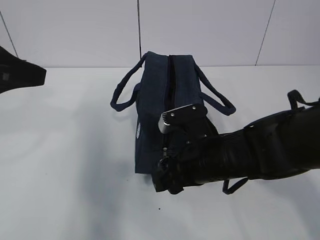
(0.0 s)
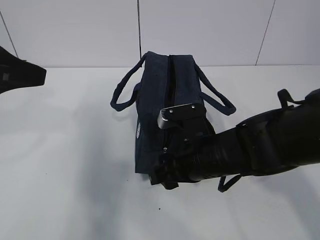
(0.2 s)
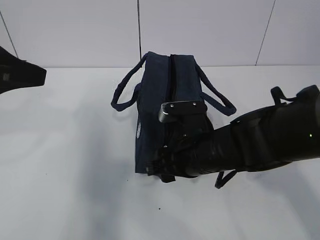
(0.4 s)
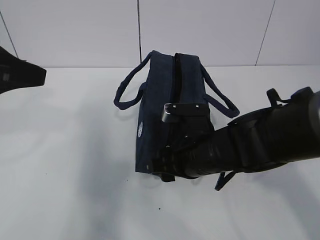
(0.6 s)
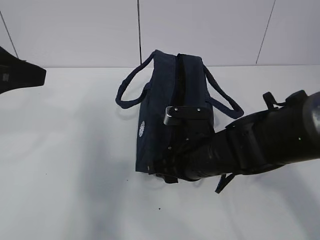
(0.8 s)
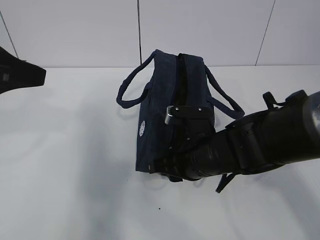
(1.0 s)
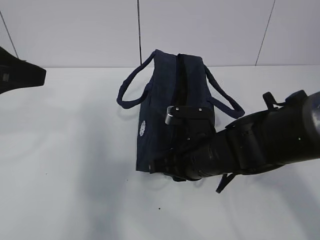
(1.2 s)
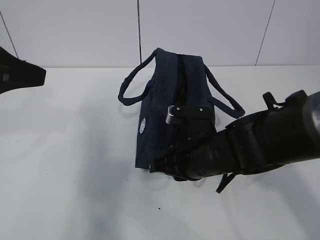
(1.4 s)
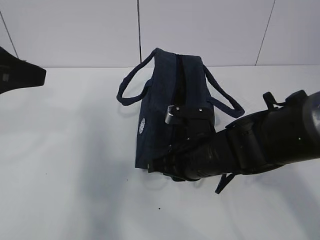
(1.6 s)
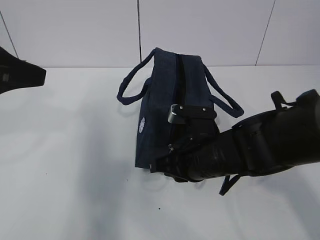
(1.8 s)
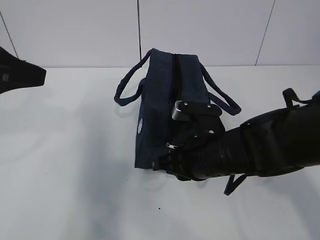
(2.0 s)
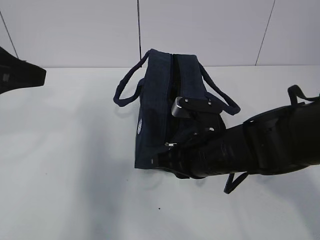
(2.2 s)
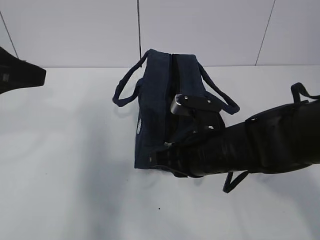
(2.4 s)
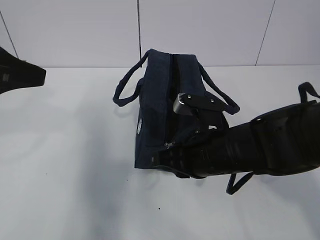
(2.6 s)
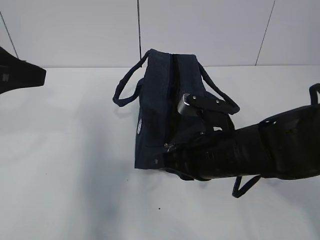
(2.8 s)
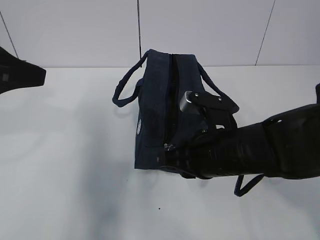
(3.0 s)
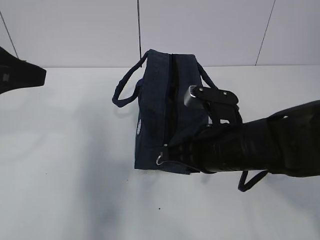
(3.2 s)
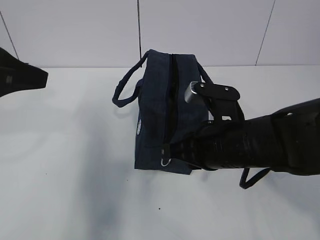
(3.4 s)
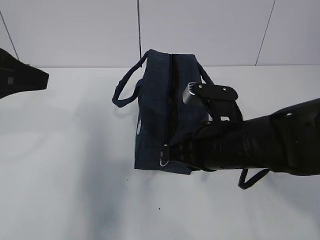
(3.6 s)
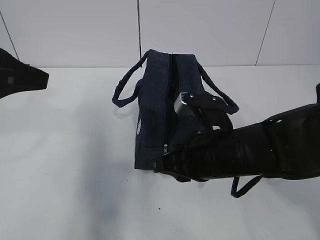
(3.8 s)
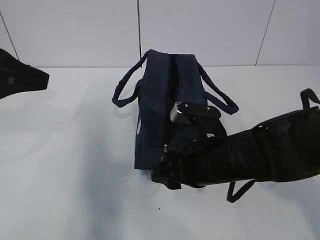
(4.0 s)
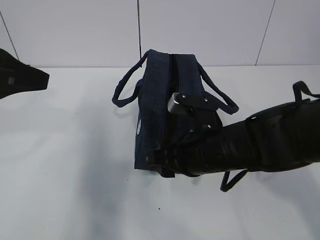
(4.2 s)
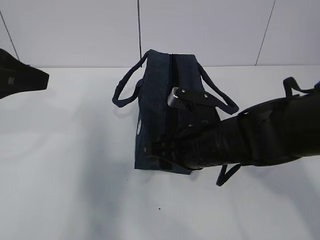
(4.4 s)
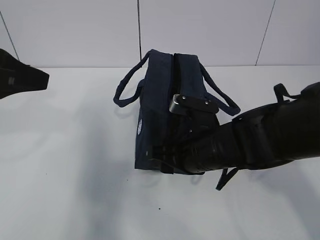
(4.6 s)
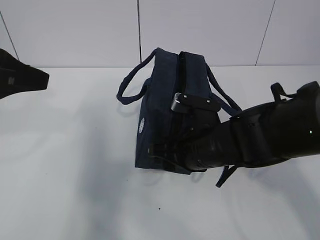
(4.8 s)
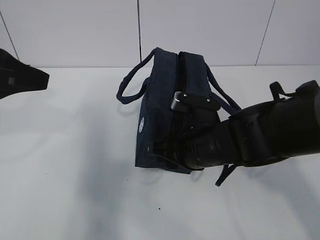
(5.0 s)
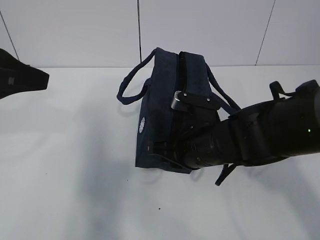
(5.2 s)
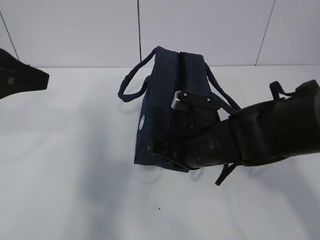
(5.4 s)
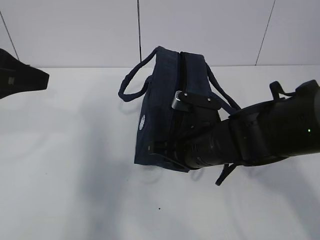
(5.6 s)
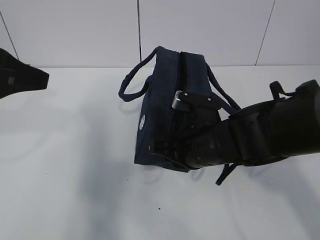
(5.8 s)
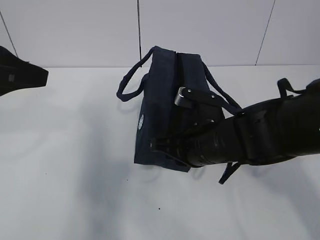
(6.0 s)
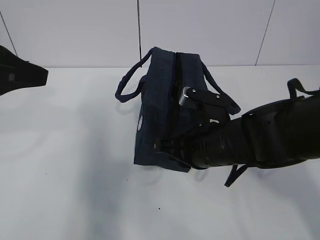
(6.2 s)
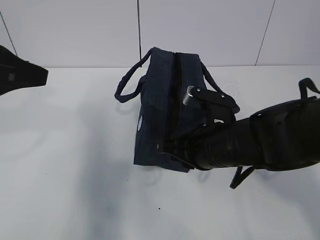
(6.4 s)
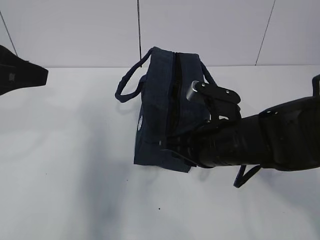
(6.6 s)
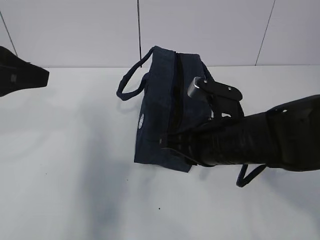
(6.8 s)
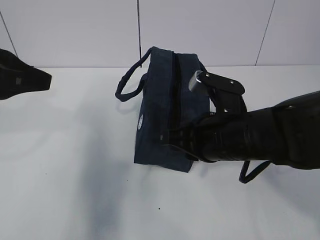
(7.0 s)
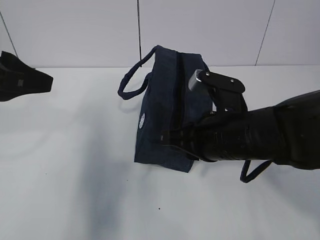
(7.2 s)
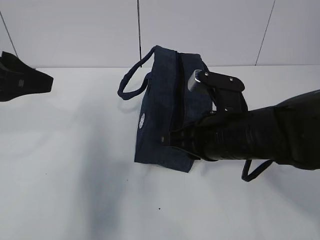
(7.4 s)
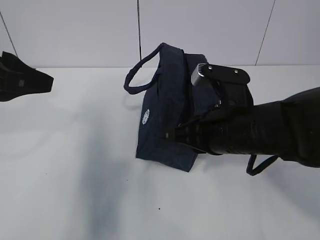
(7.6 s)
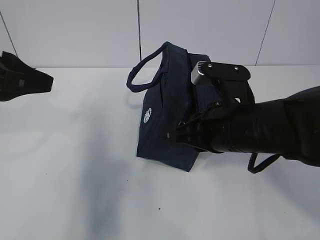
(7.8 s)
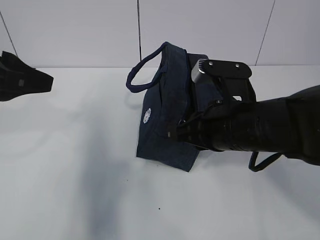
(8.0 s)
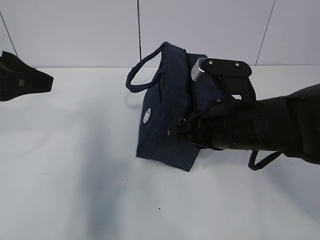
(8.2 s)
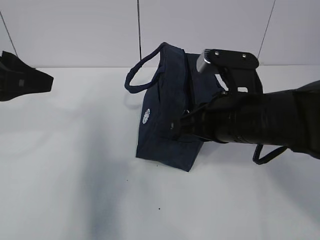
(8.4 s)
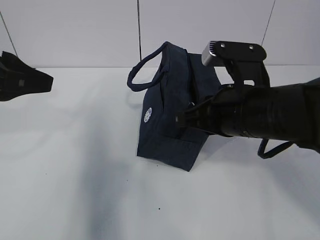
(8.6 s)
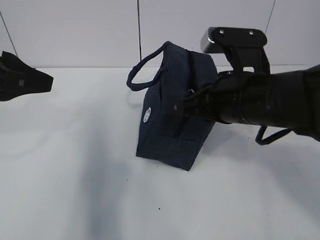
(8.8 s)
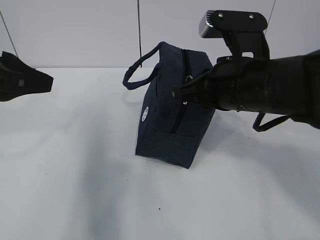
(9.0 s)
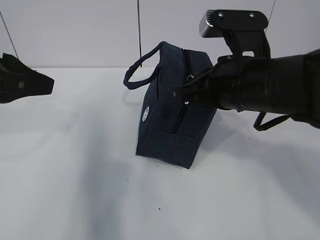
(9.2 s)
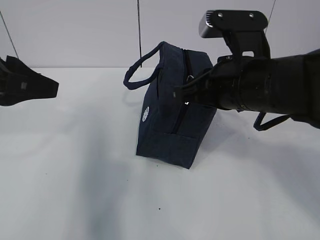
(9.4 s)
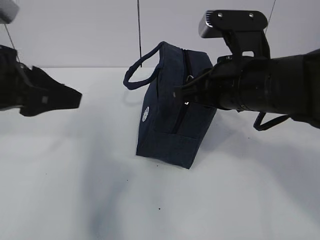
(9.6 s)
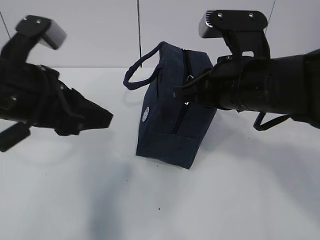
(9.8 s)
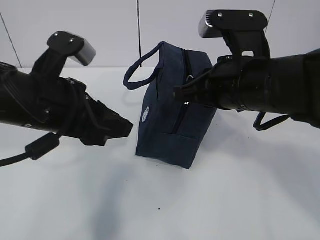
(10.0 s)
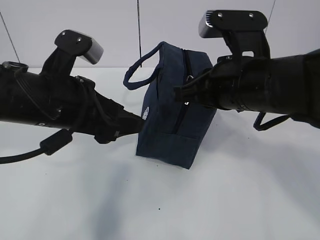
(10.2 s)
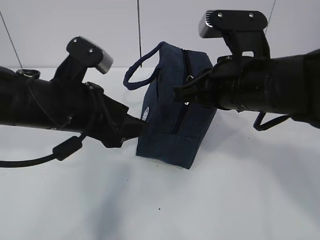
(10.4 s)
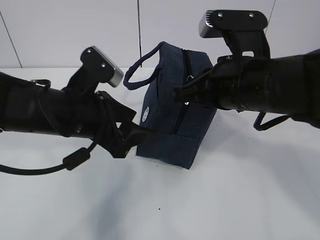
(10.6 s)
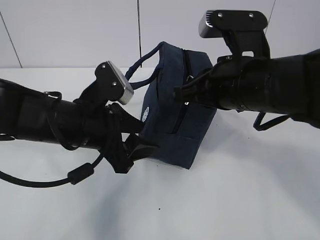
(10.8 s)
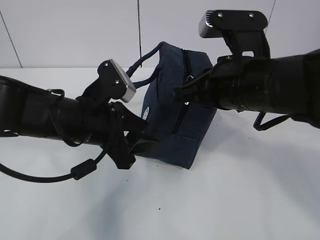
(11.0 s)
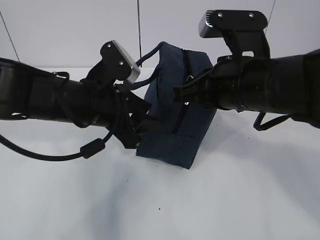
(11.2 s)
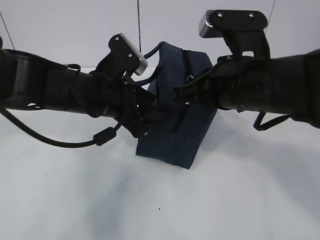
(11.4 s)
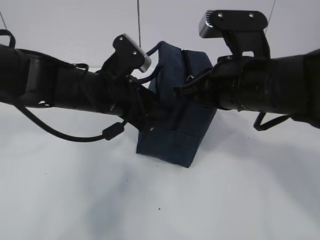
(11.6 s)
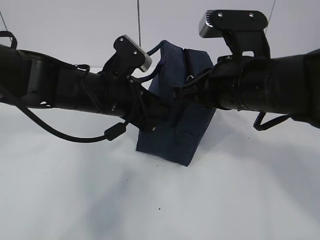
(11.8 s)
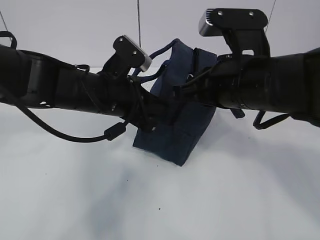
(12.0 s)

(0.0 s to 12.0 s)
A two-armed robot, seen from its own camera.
0.0 s - 1.6 s: The right gripper closes.
1.6 s - 3.0 s: The right gripper shifts by approximately 5 cm.
3.0 s - 4.4 s: The right gripper opens.
4.4 s - 6.0 s: The right gripper closes.
6.0 s - 7.6 s: The right gripper moves upward, about 5 cm.
7.6 s - 9.0 s: The right gripper heads upward, covering roughly 5 cm.
9.0 s - 10.4 s: The left gripper heads to the right and downward, covering roughly 15 cm, and opens its fingers.
10.4 s - 12.0 s: The left gripper is displaced forward by roughly 5 cm, and closes up.

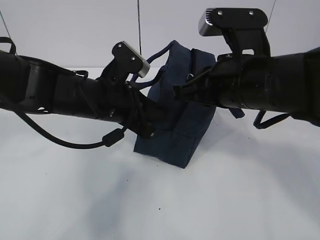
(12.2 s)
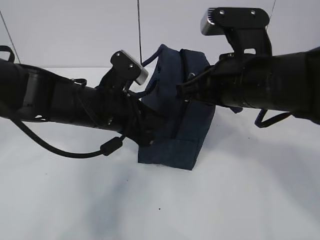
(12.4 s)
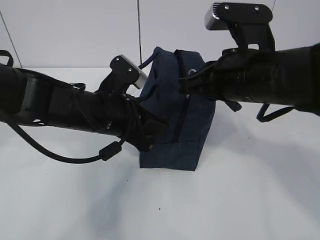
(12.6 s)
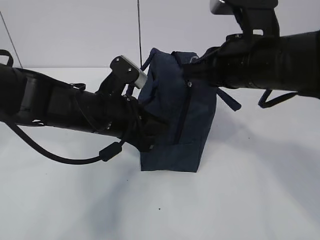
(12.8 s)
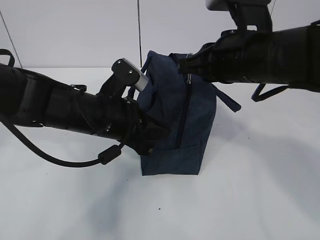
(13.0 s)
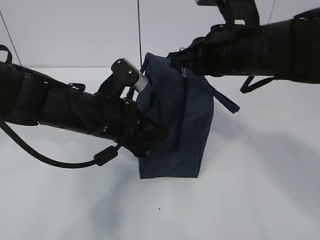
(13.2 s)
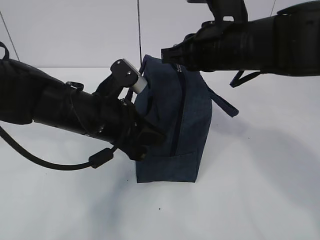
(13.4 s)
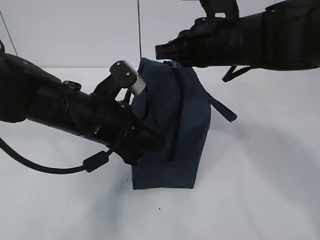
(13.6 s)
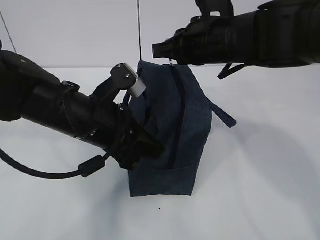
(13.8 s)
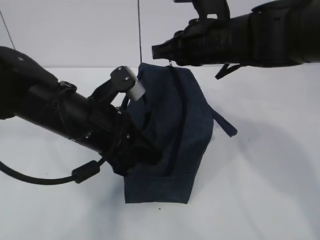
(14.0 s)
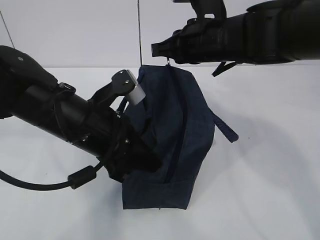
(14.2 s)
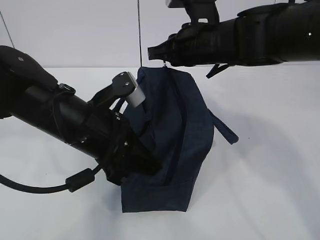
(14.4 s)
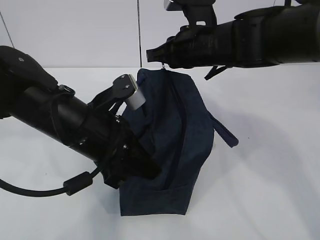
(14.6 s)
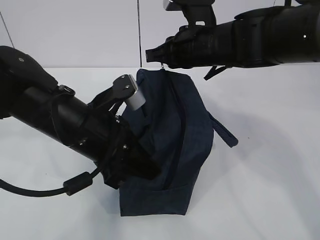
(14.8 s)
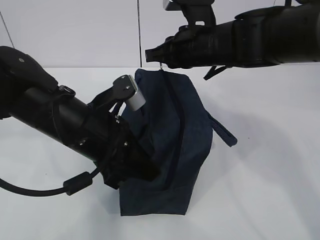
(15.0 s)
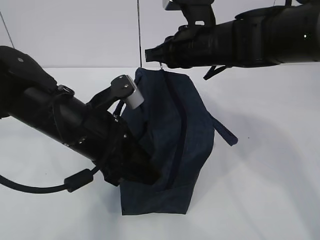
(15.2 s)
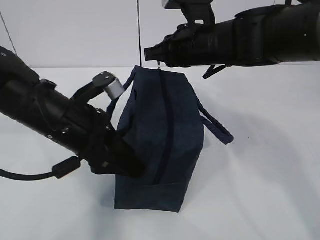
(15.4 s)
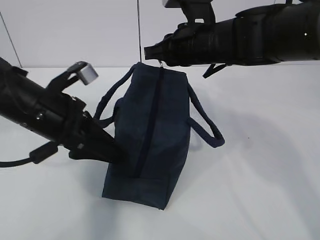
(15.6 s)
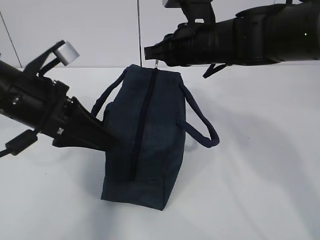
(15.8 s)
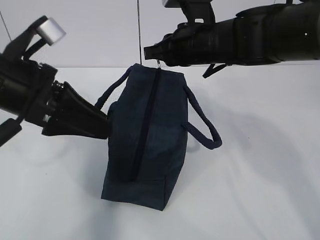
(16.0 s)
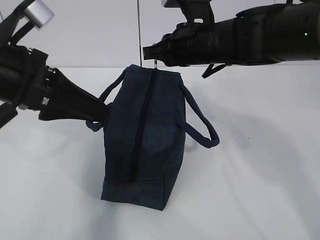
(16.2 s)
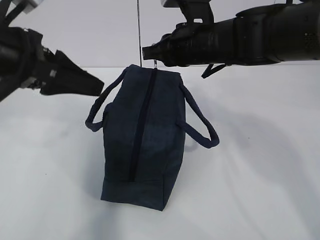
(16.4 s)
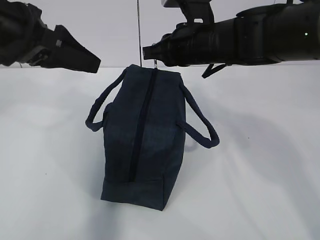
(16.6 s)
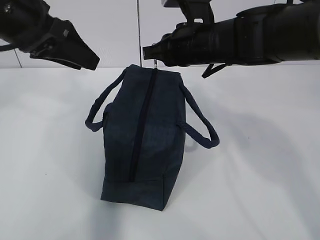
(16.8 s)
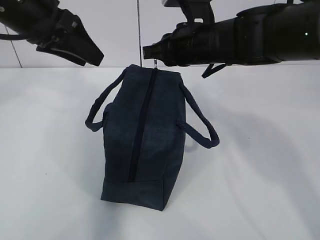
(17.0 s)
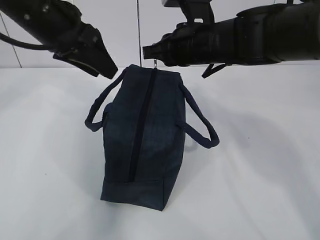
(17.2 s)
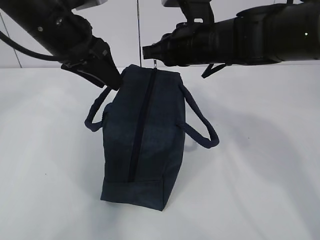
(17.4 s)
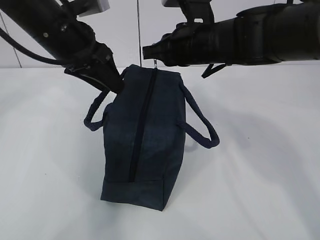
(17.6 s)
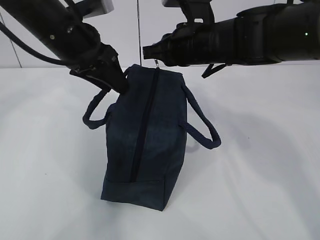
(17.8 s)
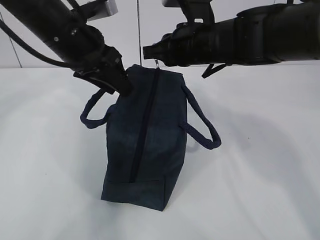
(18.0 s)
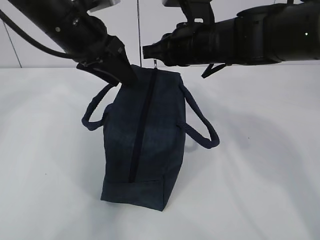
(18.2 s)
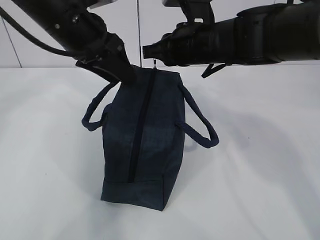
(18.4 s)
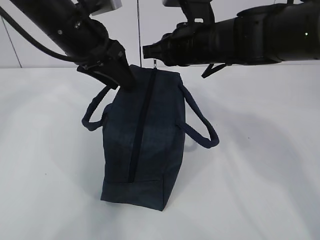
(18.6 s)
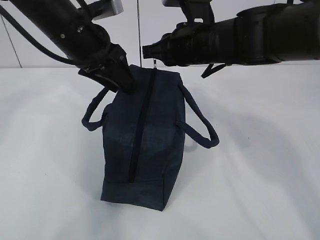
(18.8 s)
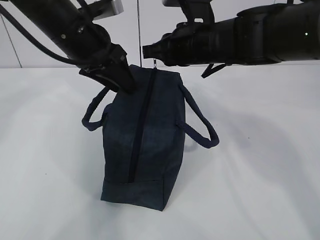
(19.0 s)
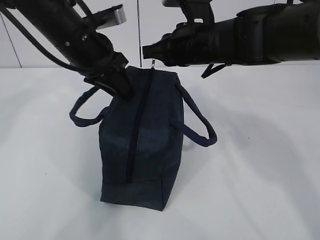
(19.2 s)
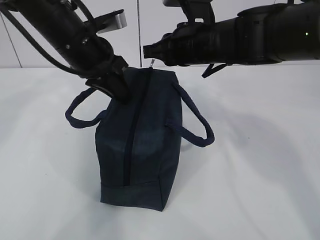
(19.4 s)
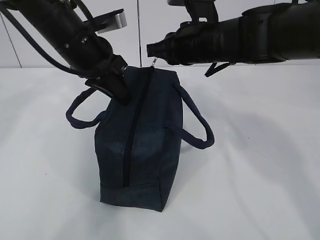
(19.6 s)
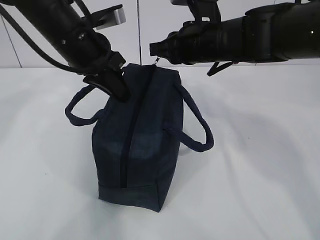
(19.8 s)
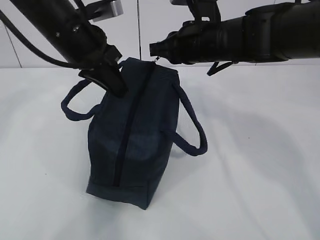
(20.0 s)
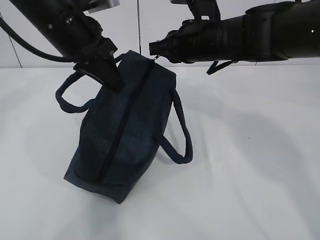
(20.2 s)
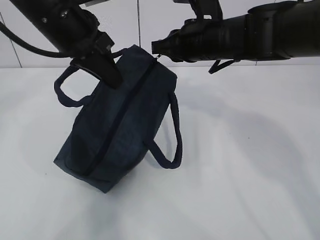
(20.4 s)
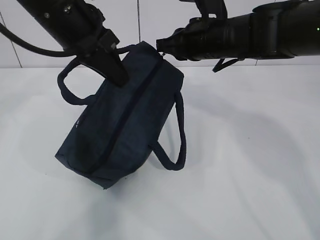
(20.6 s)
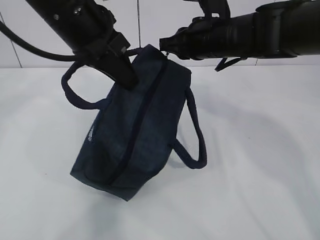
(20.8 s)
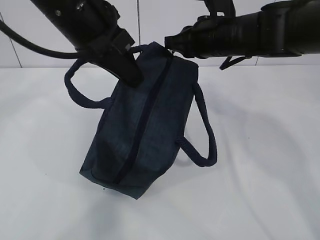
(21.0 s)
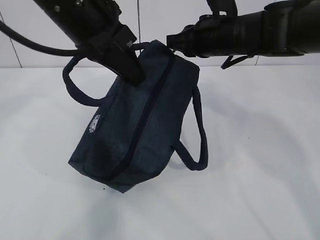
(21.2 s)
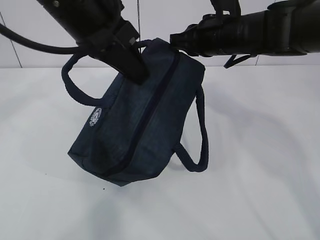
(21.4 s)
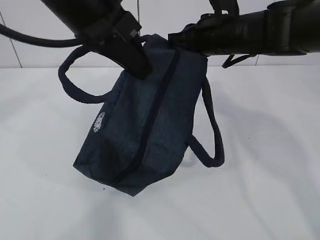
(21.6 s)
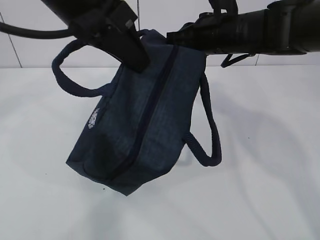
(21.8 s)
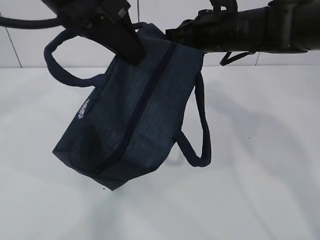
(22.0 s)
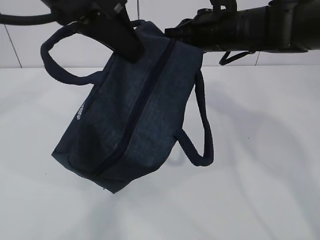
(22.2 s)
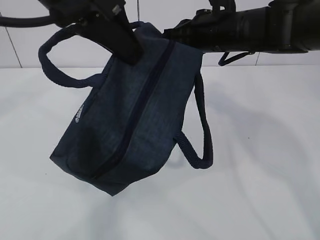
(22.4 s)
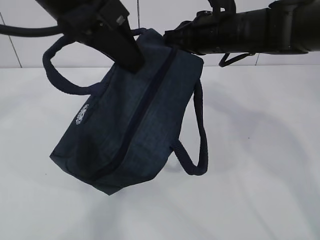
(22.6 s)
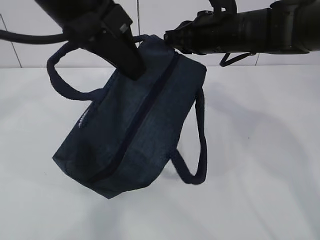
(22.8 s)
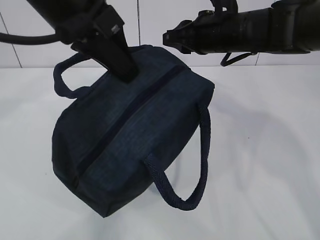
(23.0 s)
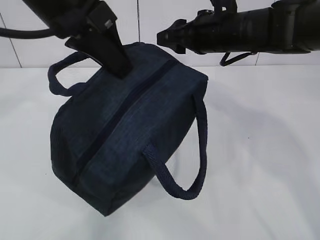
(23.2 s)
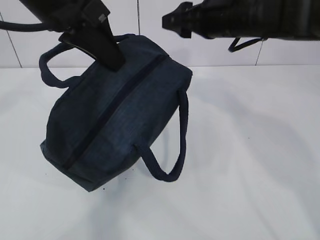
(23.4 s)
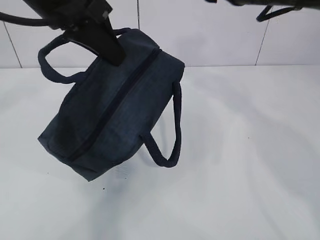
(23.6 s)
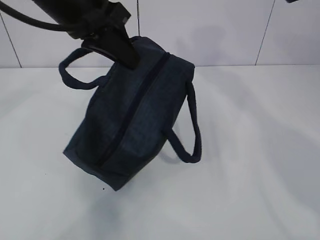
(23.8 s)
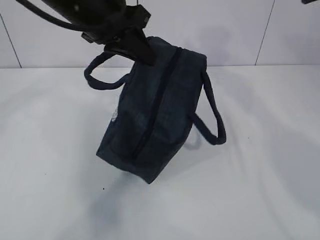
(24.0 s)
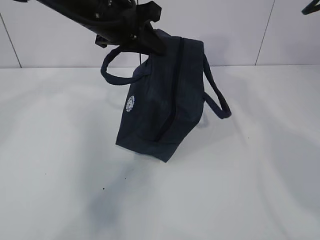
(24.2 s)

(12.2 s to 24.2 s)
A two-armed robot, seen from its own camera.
12.2 s - 13.8 s: The right gripper heads forward, covering roughly 10 cm.
13.8 s - 15.2 s: The left gripper opens up.
15.2 s - 16.6 s: The left gripper travels upward and to the left by some 15 cm.
16.6 s - 18.2 s: The left gripper goes about 10 cm to the right and forward.
18.2 s - 19.8 s: The left gripper closes its fingers.
19.8 s - 21.2 s: The left gripper heads upward and backward, covering approximately 10 cm.
21.2 s - 22.6 s: The left gripper shifts by roughly 5 cm.
22.6 s - 24.2 s: The left gripper is displaced forward and downward by roughly 15 cm. Meanwhile the right gripper is displaced upward and to the right by roughly 15 cm, and opens its fingers.
